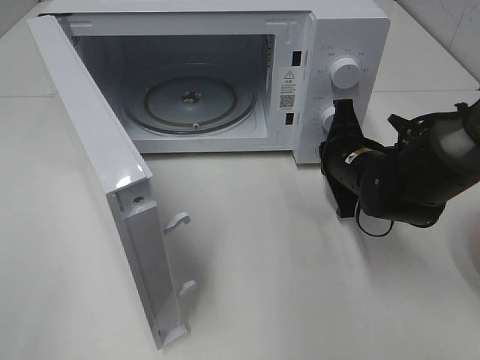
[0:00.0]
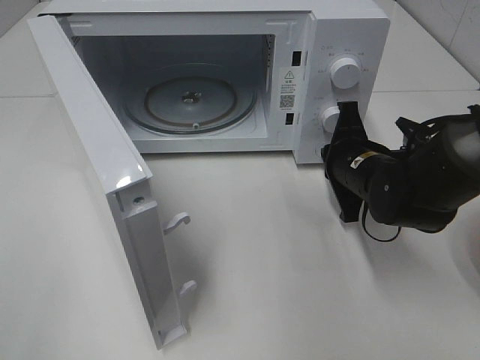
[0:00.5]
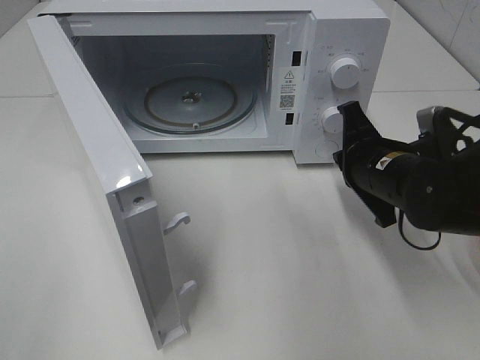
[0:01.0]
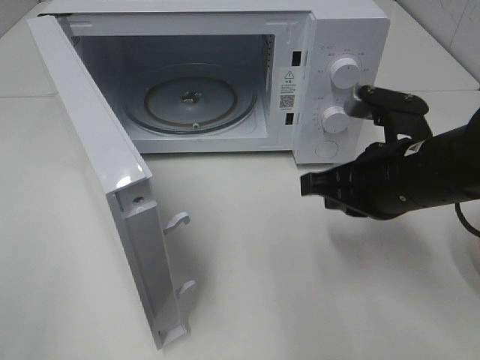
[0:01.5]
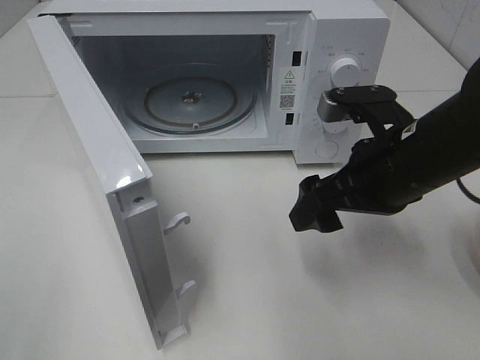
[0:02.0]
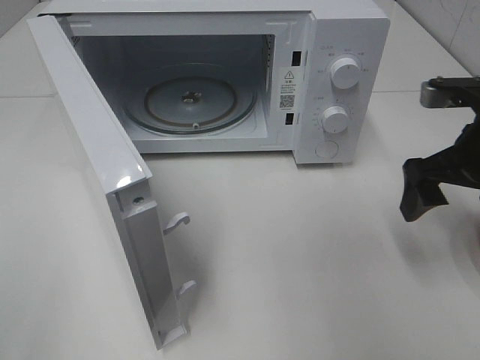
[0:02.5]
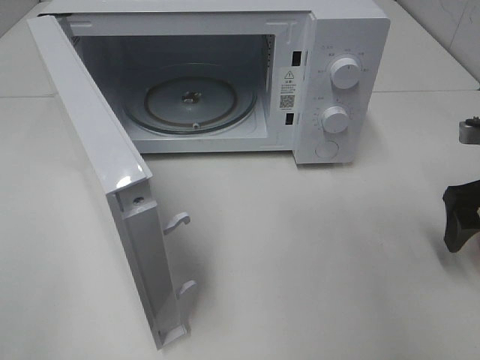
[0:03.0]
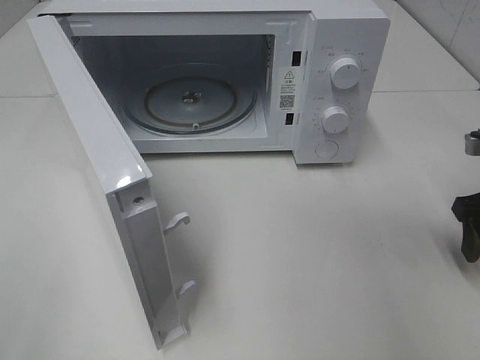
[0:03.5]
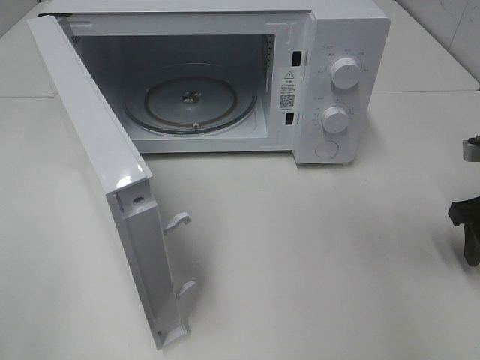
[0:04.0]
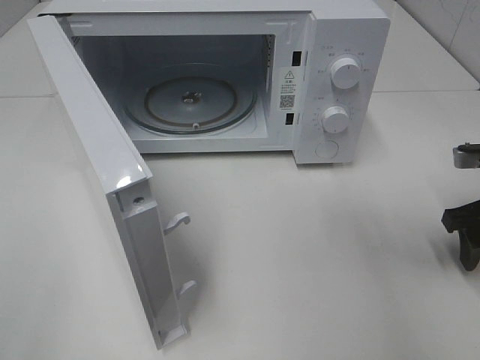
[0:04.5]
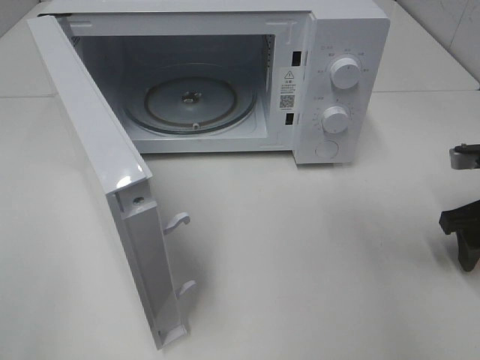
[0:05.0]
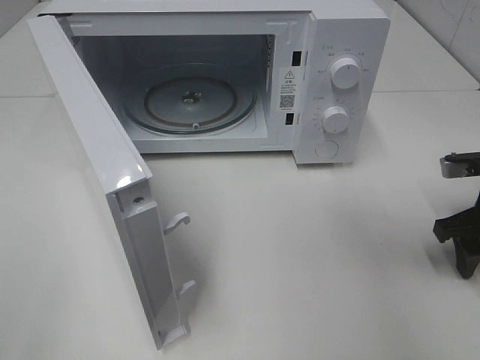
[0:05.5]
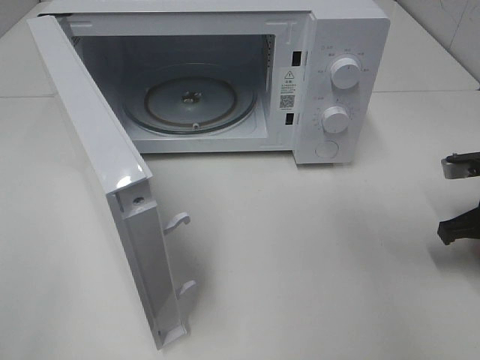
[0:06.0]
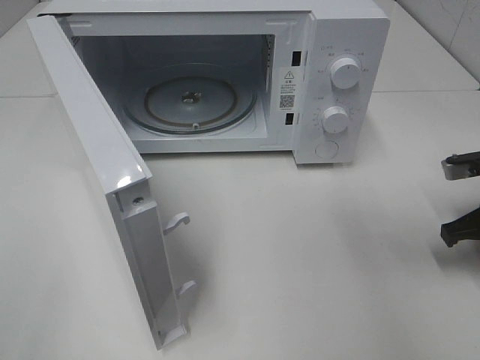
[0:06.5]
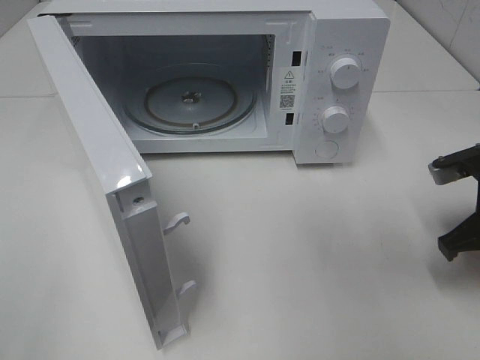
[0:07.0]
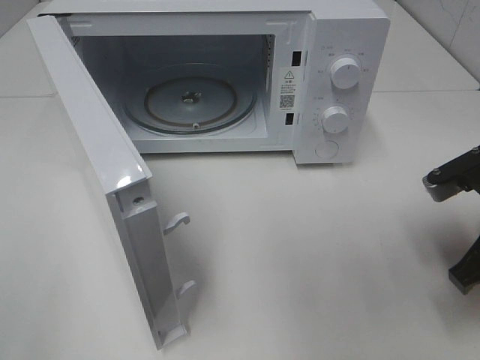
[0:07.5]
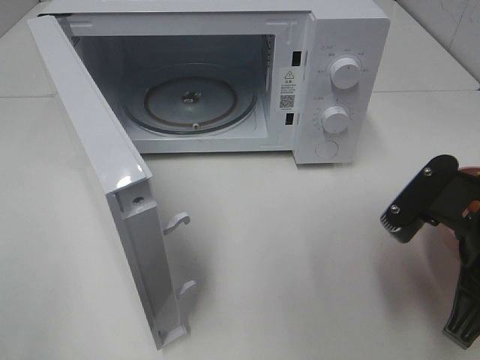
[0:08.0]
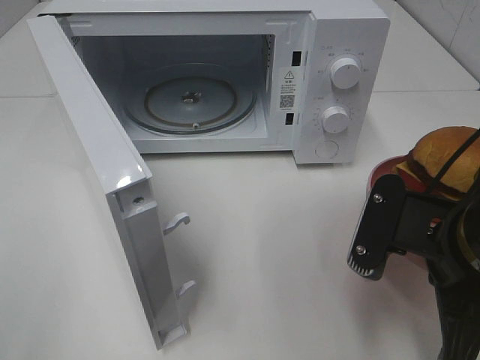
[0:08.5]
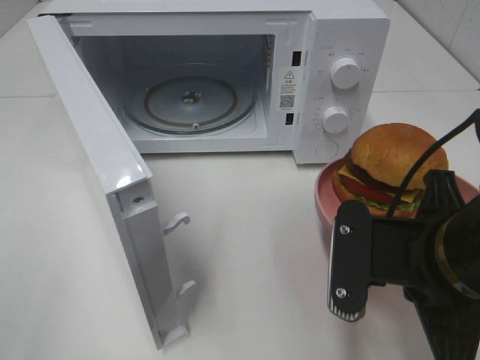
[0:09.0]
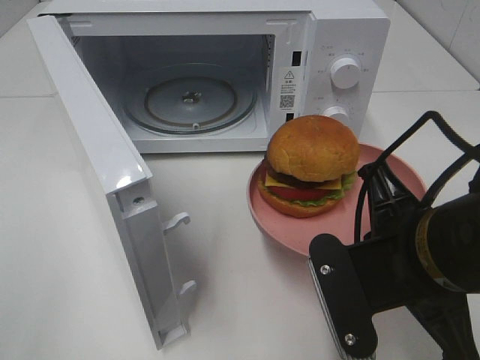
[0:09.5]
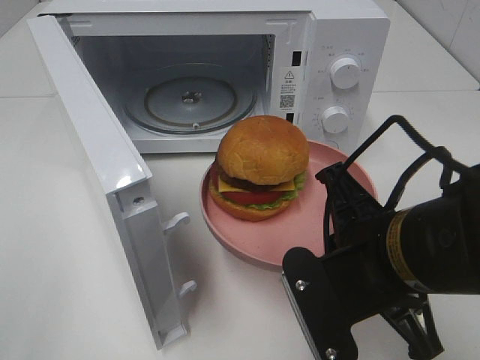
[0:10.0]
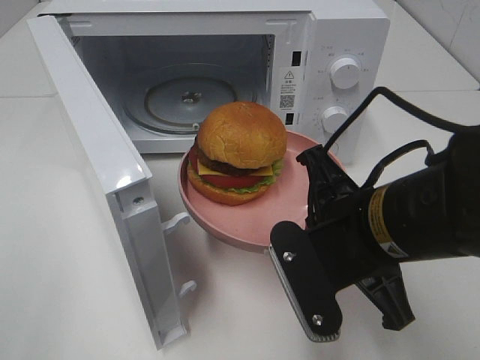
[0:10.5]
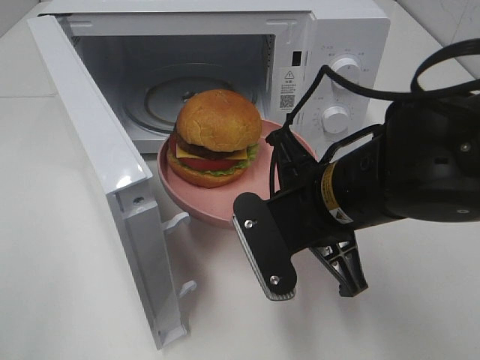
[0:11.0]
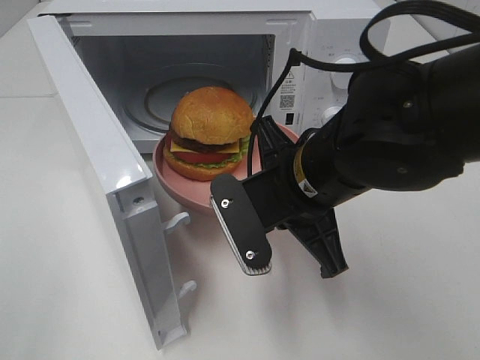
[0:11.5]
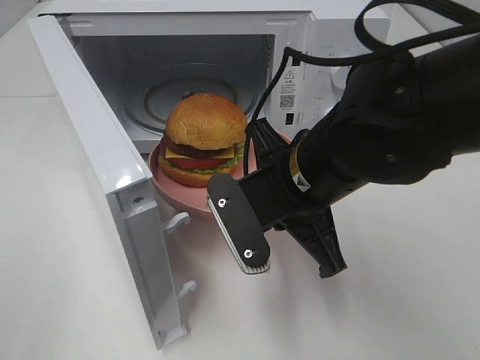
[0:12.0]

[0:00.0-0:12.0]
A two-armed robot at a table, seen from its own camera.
Task of the whole recording: Heat the burger.
Step, 0:00.5 to 0:05.5: Right hand: grab the plate with the hamburger.
0:00.0 to 0:02.0: The right gripper moves upward and backward, about 15 cm, and opens.
0:02.0 to 0:04.0: The right gripper goes some 15 cm to the right.
0:04.0 to 0:06.0: The right gripper closes up.
0:06.0 to 0:08.0: The right gripper is displaced backward, to the left and upward by some 20 cm.
0:08.0 to 0:10.0: The right gripper goes about 10 cm to the left.
0:10.0 to 0:12.0: The right gripper shifts some 10 cm forward and to the left.

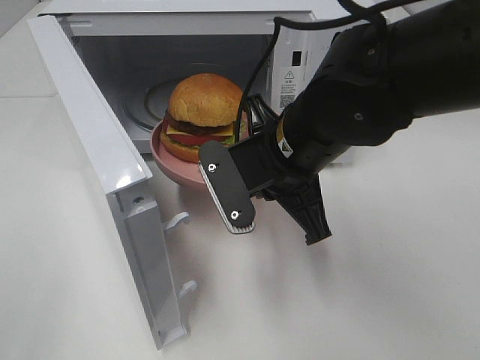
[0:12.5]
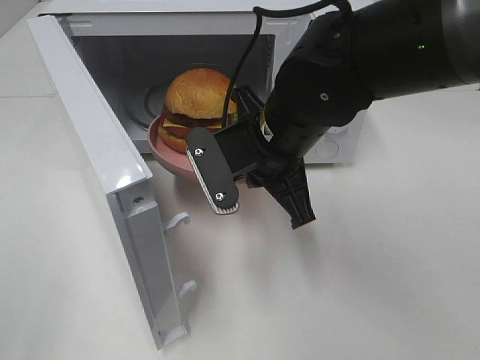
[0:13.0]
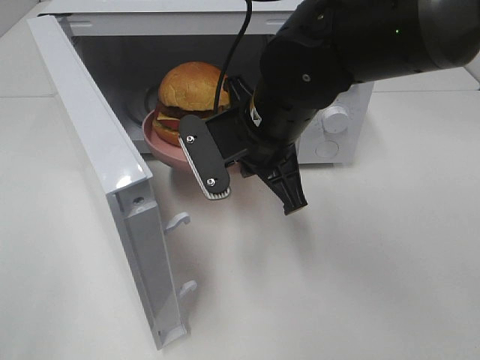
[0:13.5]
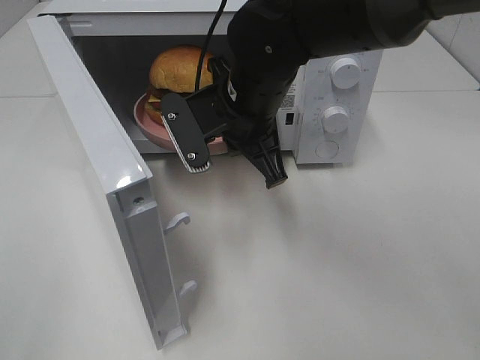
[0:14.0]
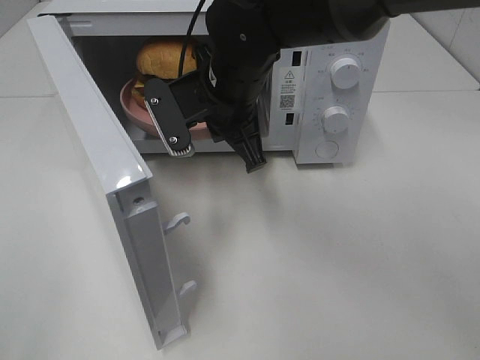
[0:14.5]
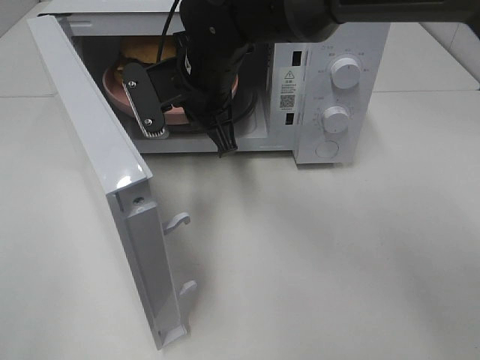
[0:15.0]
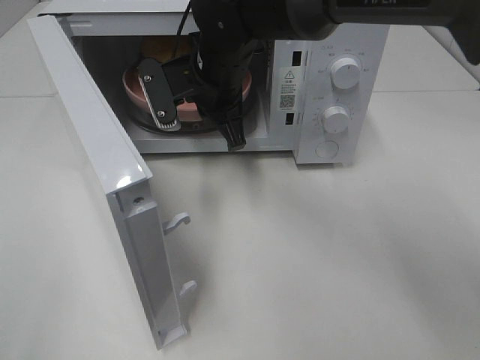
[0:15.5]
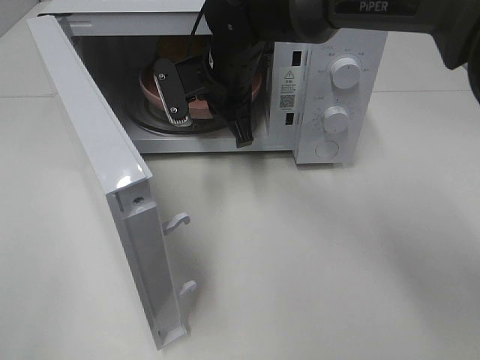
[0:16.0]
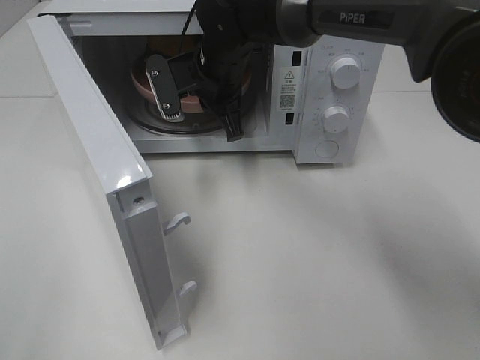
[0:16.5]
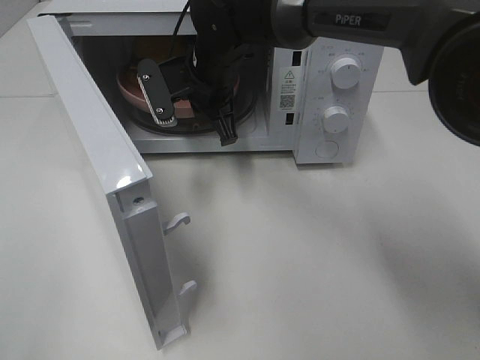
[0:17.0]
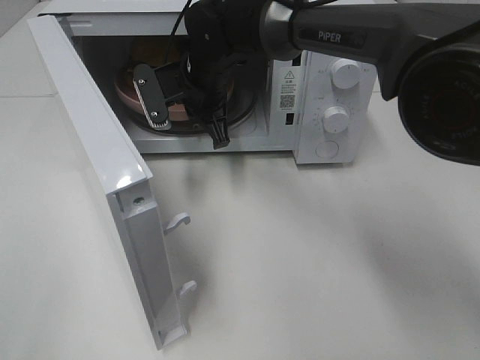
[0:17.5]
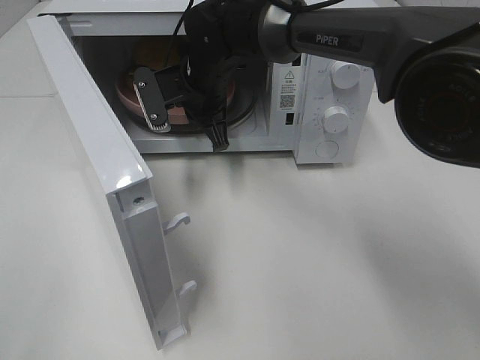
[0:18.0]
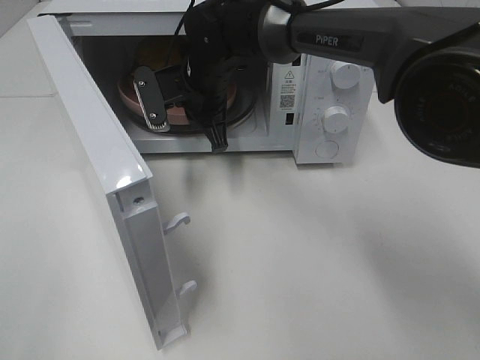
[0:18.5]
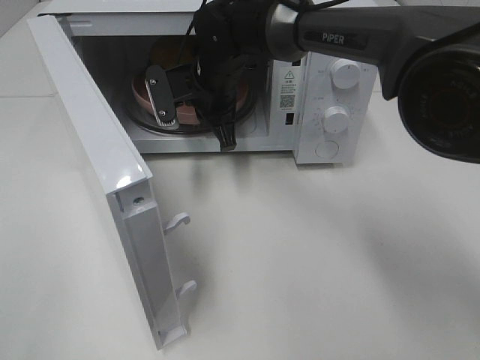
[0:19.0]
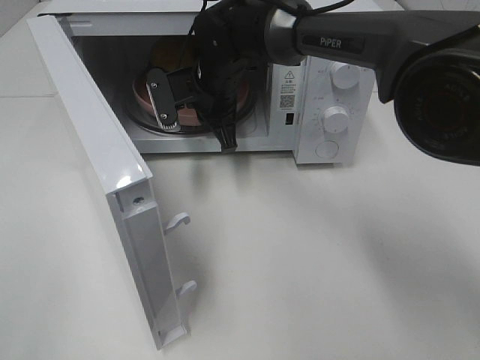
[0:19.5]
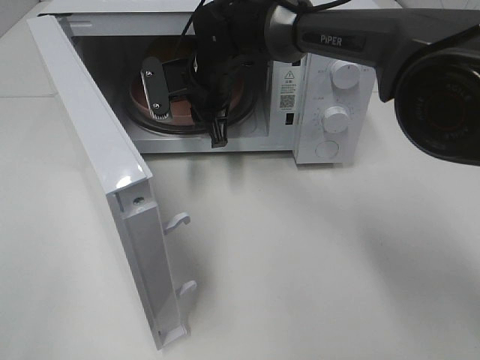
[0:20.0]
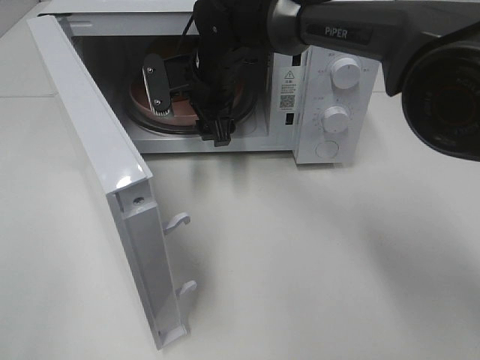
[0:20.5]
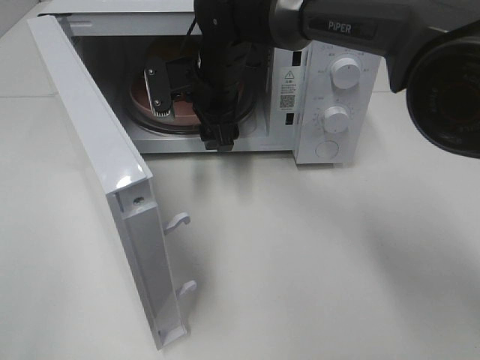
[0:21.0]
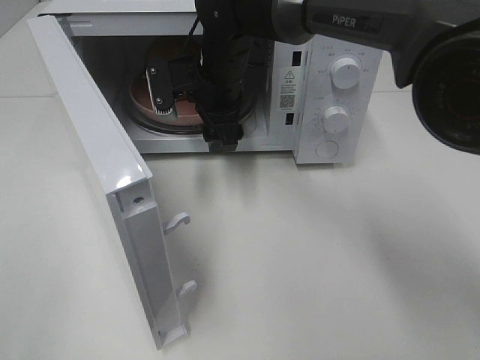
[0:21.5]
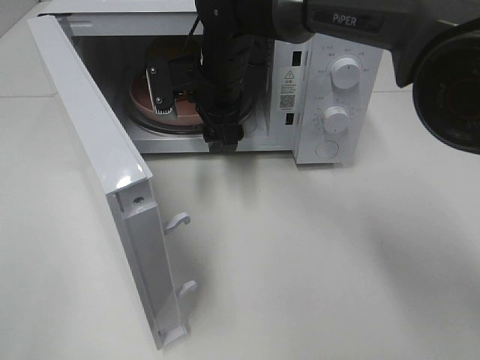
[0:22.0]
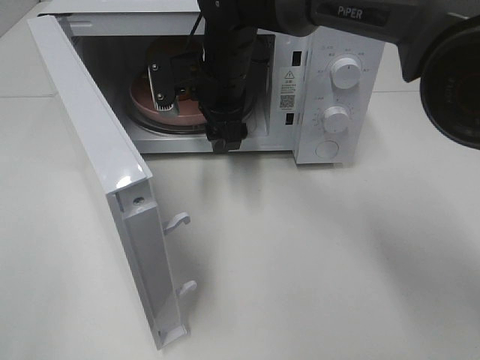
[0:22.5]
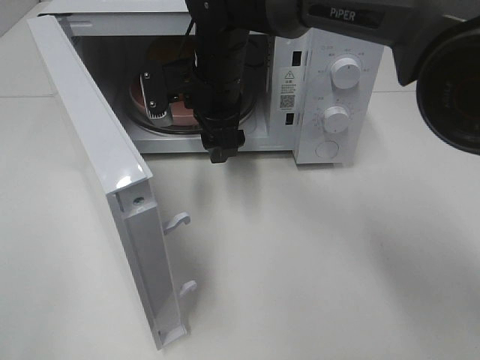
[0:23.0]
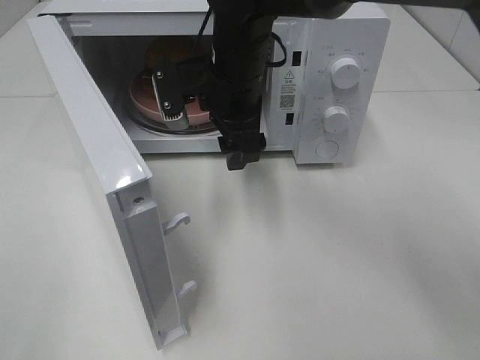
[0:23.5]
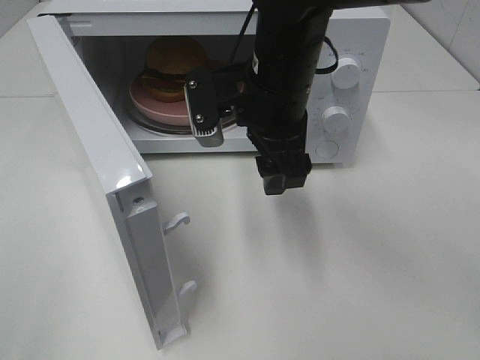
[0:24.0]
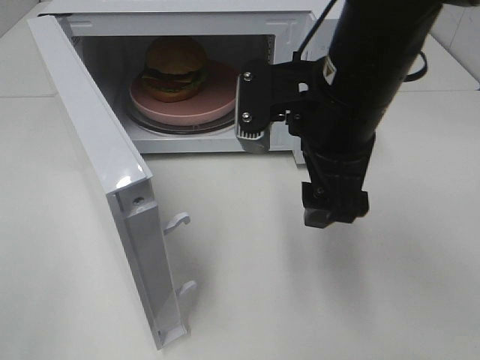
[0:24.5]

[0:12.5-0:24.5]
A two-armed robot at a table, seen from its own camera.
Task of the whole recording: Heat the burger.
Step, 0:12.5 to 0:19.5: Right hand: place the plate in the microwave.
0:12.5 to 0:14.5: The right gripper moves forward and to the left, approximately 10 cm.
0:14.5 to 0:16.5: The right gripper shifts about 10 cm forward.
0:16.5 to 0:18.5: The grippers stay close to where they were, moving slightly.
0:18.5 to 0:20.5: The right gripper opens up.
0:20.5 to 0:22.5: The grippers make only small movements.
0:22.5 to 0:24.5: The right gripper moves backward and to the right, approximately 20 cm.

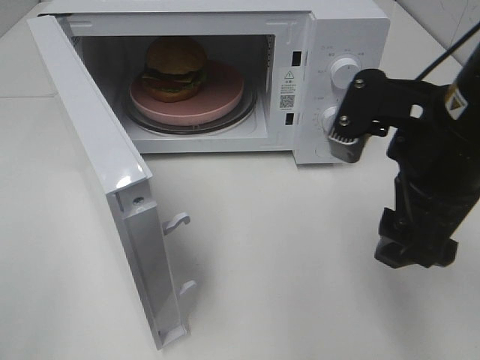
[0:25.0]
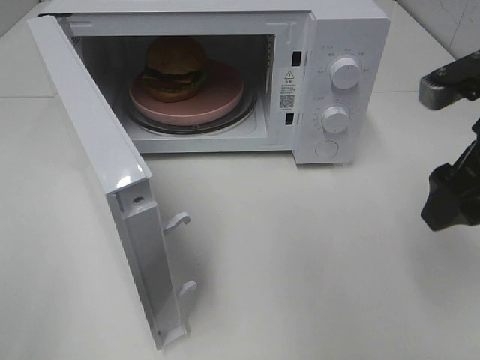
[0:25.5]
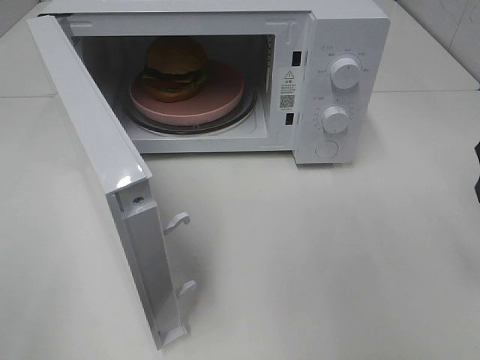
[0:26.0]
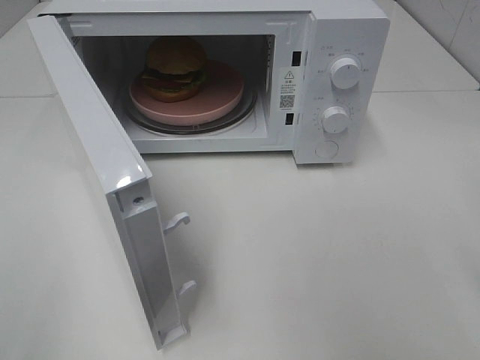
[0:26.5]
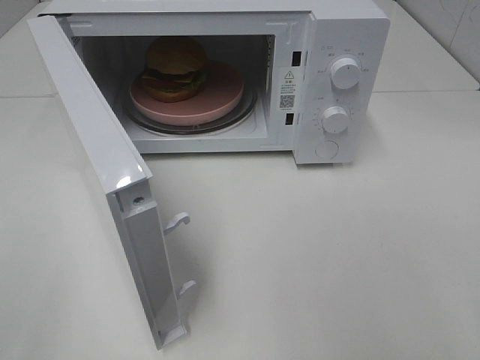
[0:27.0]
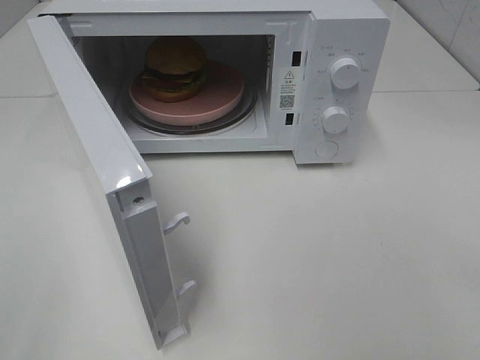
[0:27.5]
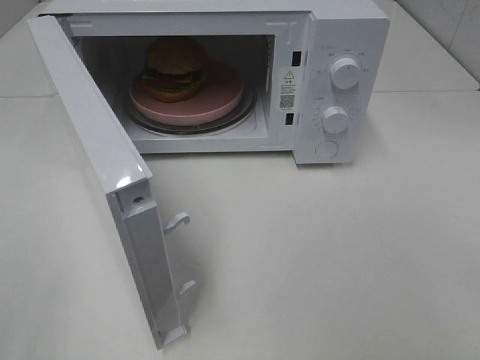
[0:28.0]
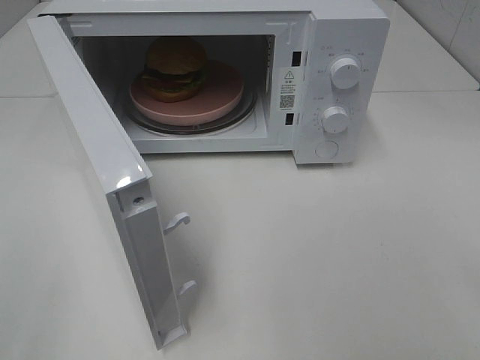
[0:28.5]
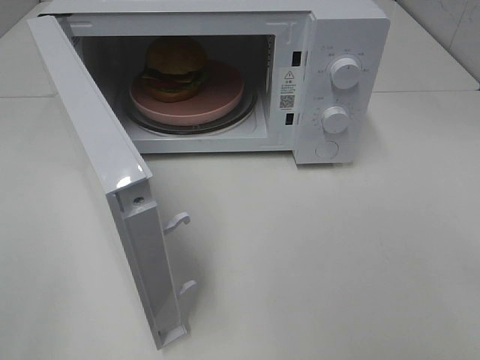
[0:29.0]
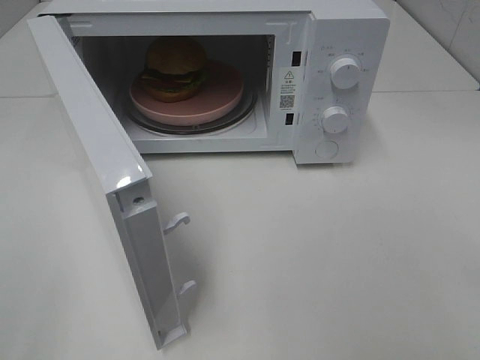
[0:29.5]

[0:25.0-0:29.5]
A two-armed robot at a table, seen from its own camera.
Task of the whole recording: Heat the burger.
0:25.0 to 0:27.0: The right gripper moves backward and to the right, about 20 cm.
